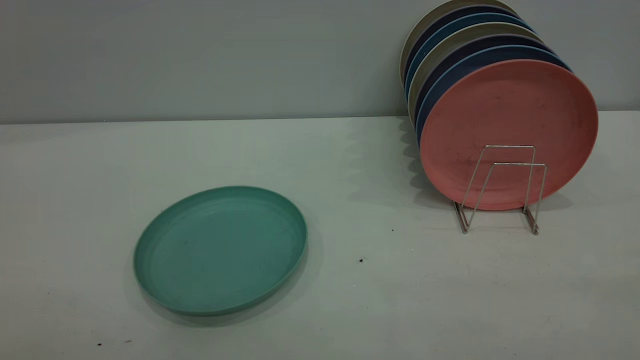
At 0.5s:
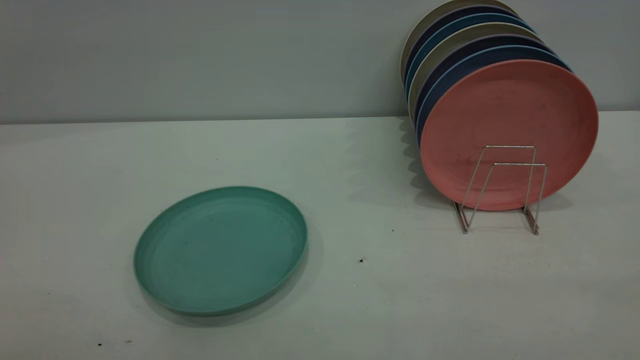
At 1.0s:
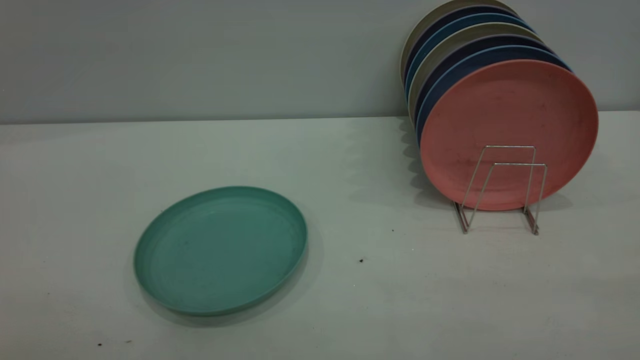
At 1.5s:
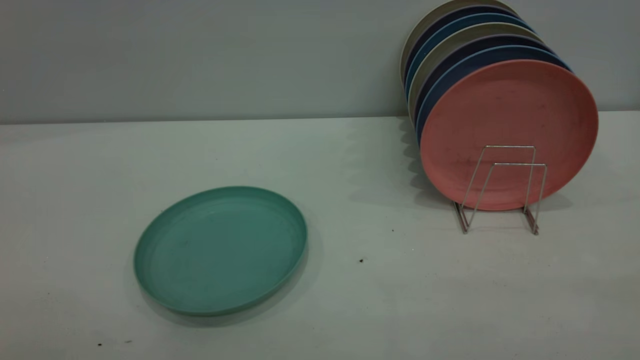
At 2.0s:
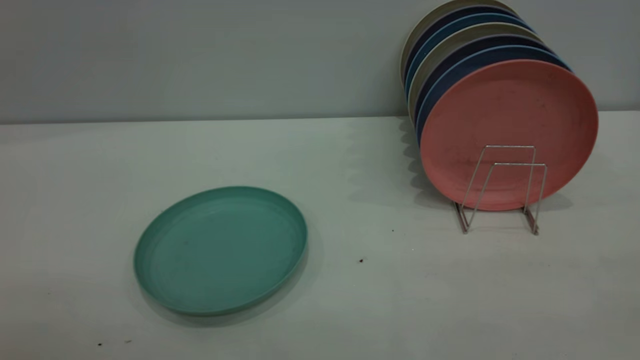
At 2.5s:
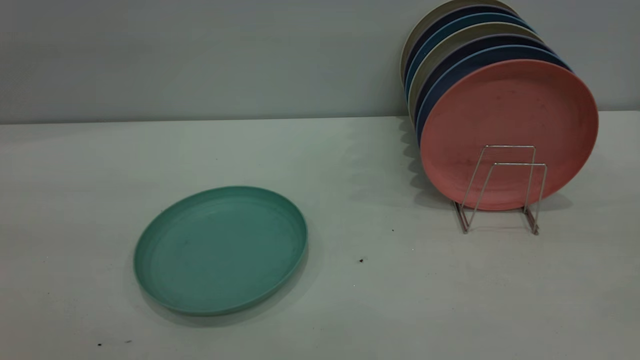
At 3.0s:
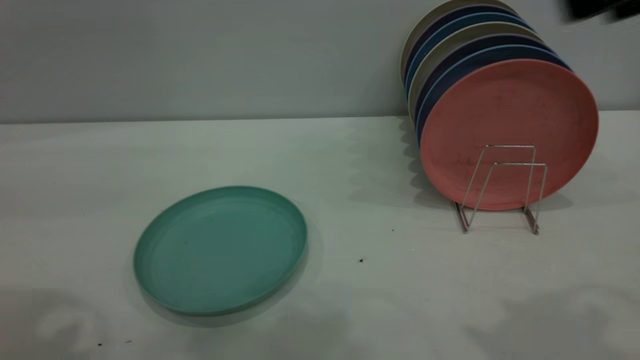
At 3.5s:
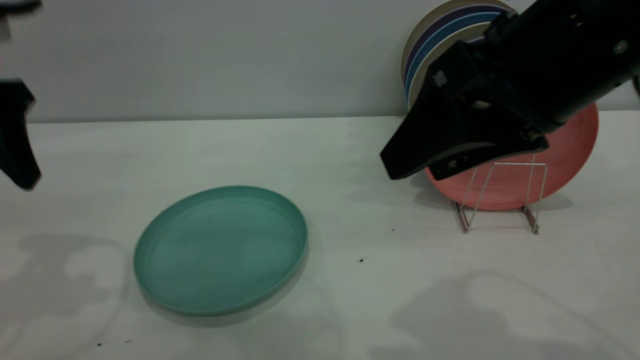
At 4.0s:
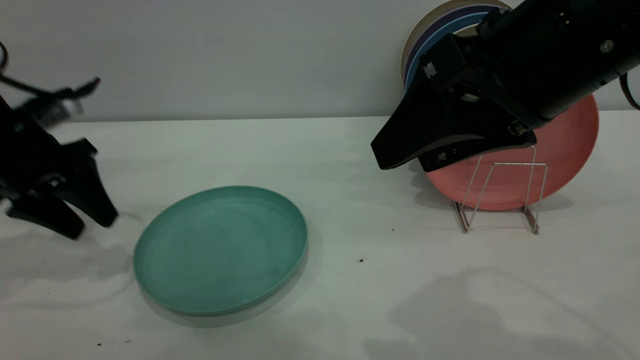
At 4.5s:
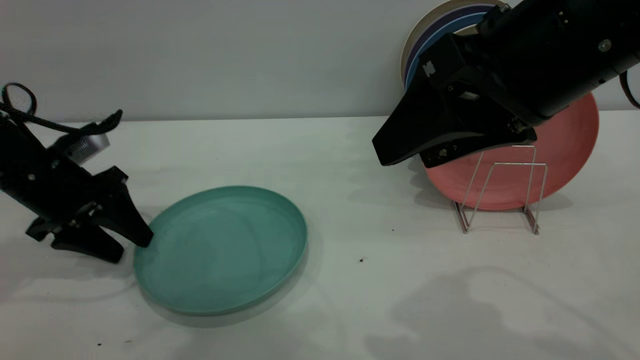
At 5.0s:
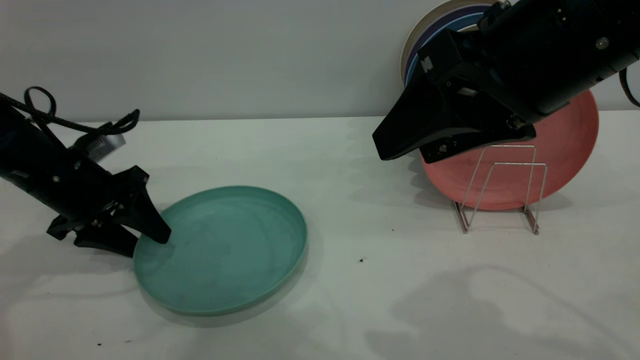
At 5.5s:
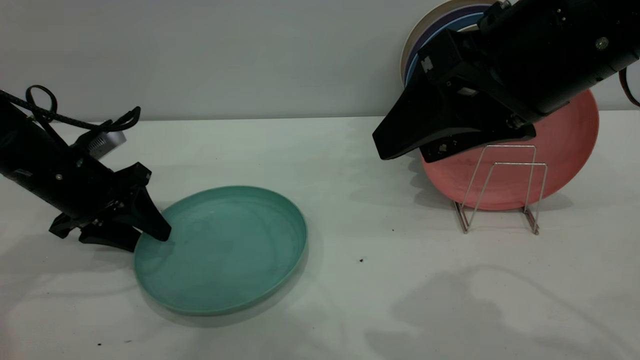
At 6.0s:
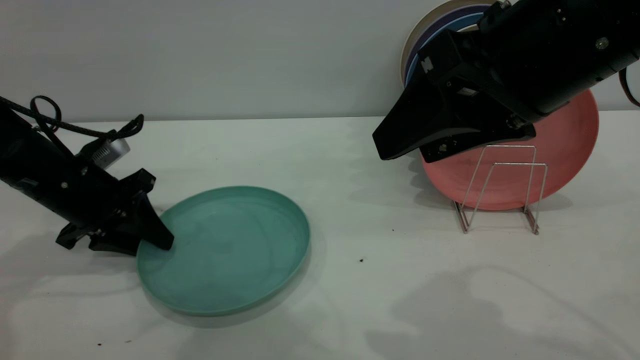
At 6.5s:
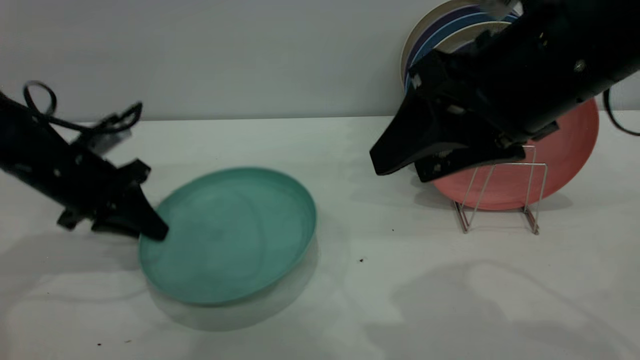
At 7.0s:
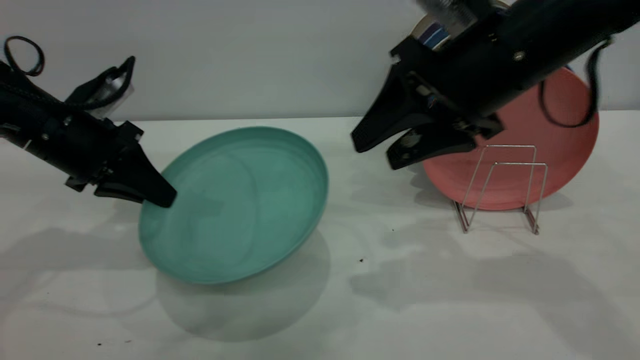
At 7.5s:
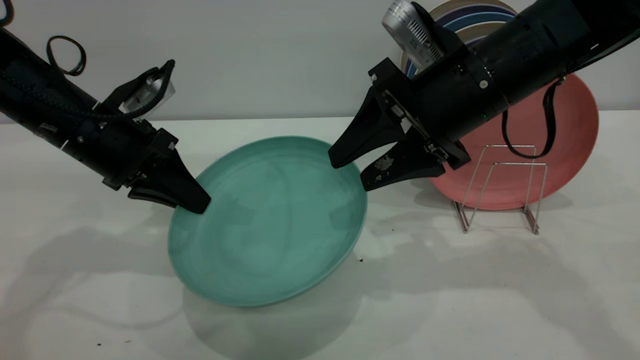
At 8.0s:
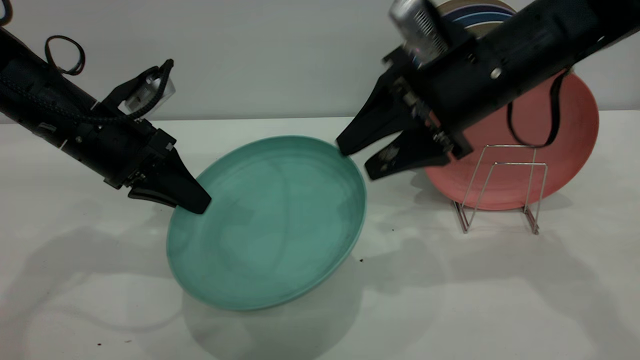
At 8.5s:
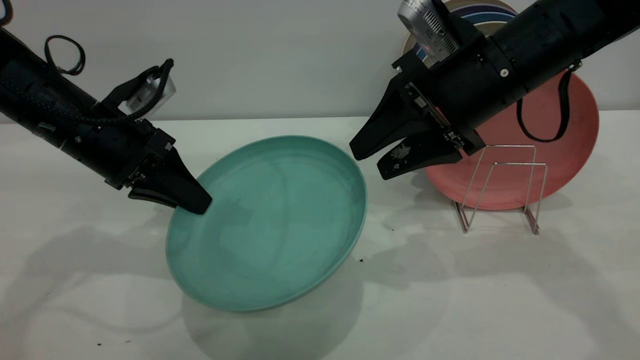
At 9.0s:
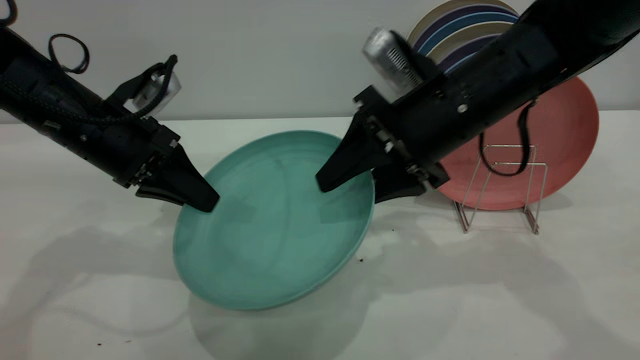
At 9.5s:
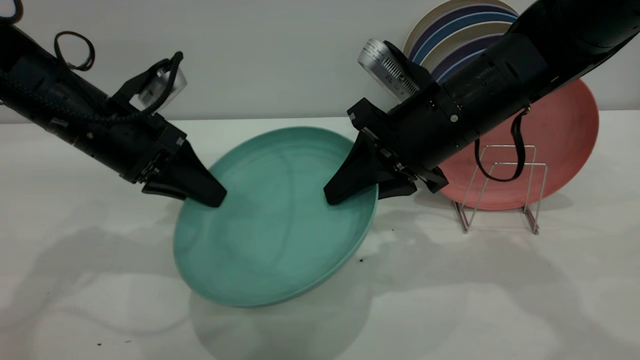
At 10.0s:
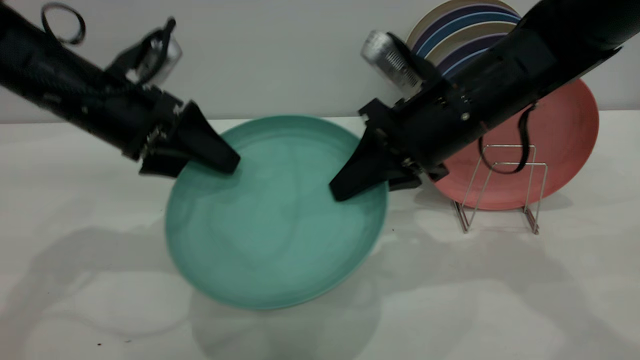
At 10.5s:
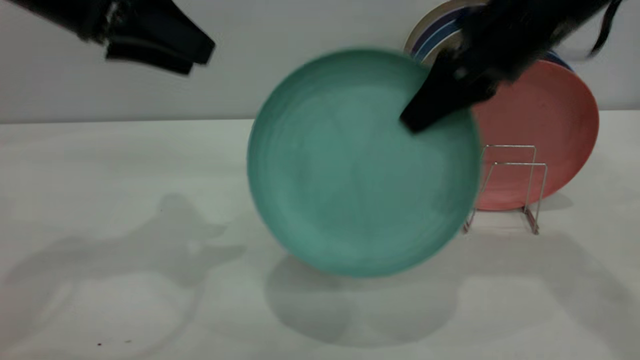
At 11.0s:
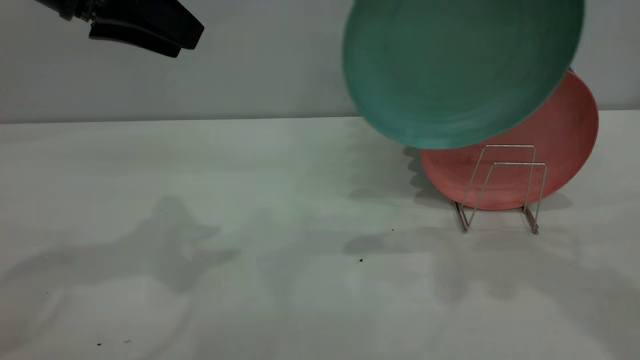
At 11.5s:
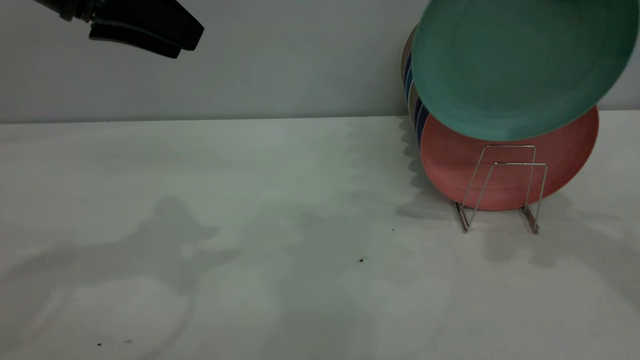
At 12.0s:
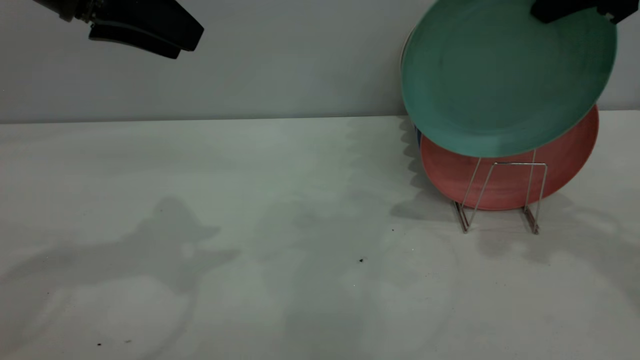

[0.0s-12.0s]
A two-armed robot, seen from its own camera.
Task of the whole recording: the left gripper grasp the green plate, the left gripper pass the green plate to the right gripper, and the right gripper place the green plate on the plate rack.
Step, 0.0s to 6.5s: Pick up the plate with the left gripper.
Step, 7.0s to 10.0s: Pass the plate from the left gripper to the right gripper.
2.0s to 4.0s: The right gripper heads forward and to the left, covering roughly 30 cm, and opens up. Meanwhile the left gripper goes roughly 40 cm forward and downward.
4.0s to 6.0s: The left gripper goes about 5 cm downward, and closes its fingers.
6.0s to 8.0s: The left gripper travels upward and to the right by roughly 10 cm, and closes, while the right gripper heads forward and downward, covering some 15 cm.
8.0s to 10.0s: The left gripper opens; the right gripper closes its fingers.
10.0s to 12.0s: The left gripper travels upward by some 10 cm. Meanwhile the right gripper goes approximately 20 cm upward and to the right.

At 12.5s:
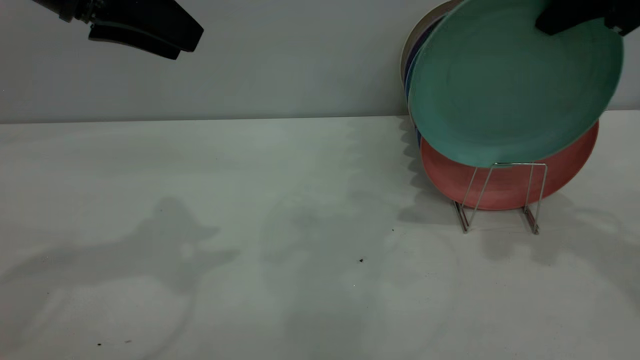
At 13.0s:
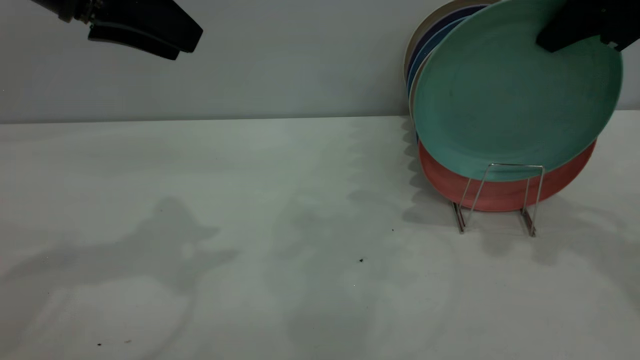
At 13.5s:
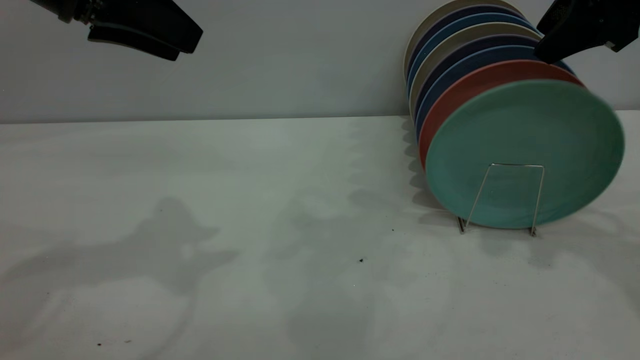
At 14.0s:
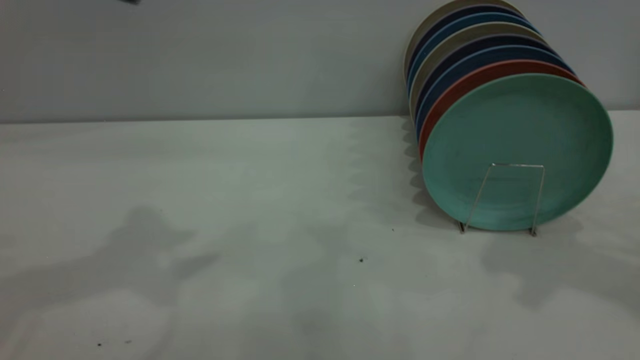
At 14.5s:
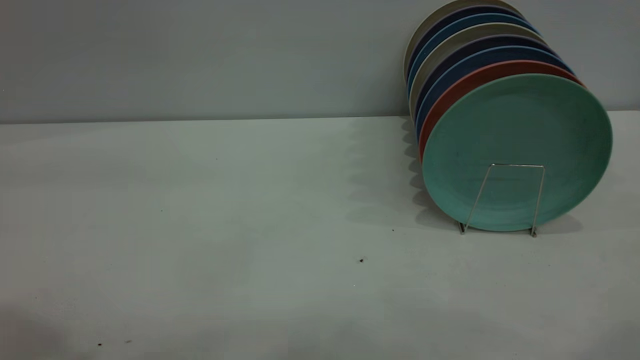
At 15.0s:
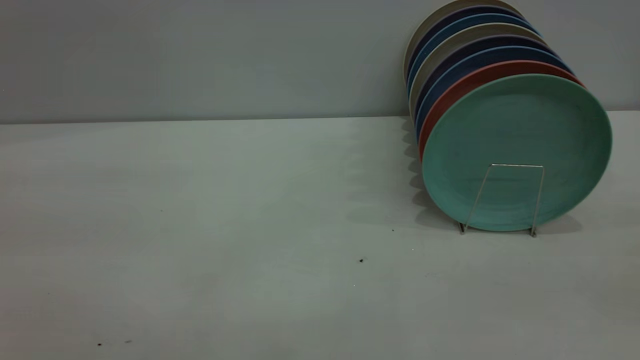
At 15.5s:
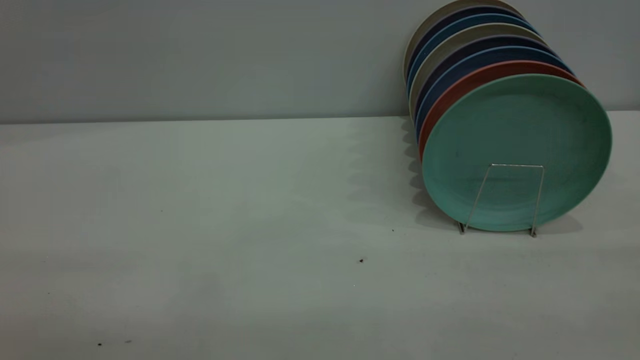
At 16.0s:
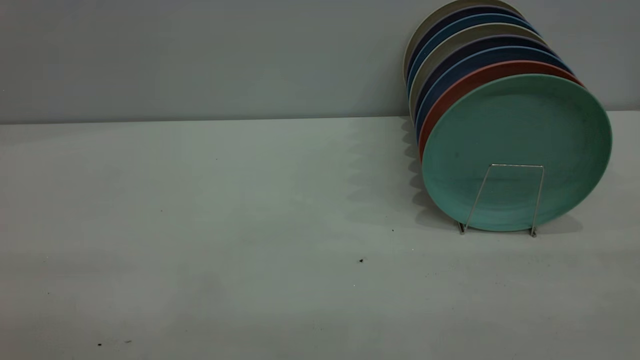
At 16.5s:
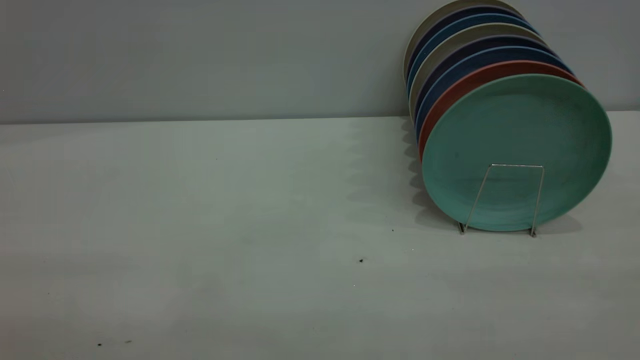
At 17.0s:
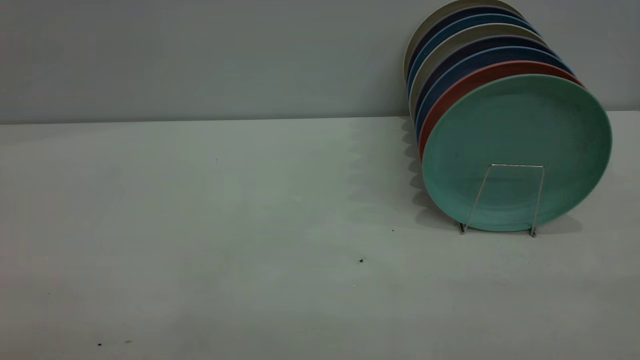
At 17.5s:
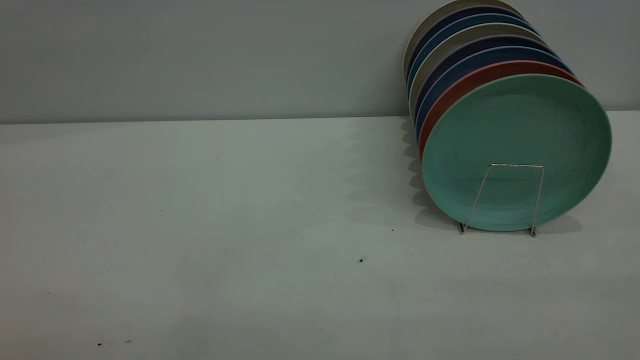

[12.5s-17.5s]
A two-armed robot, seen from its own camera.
Task of the whole recording: the left gripper grasp the green plate, the left gripper pass the green plate to the right gripper, and the right gripper place the green plate on the plate rack.
12.5s to 15.0s: The left gripper moves backward and upward, some 30 cm. The right gripper travels backward by approximately 35 cm, and opens.
